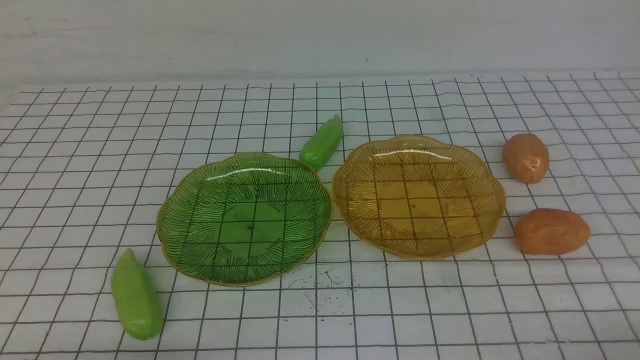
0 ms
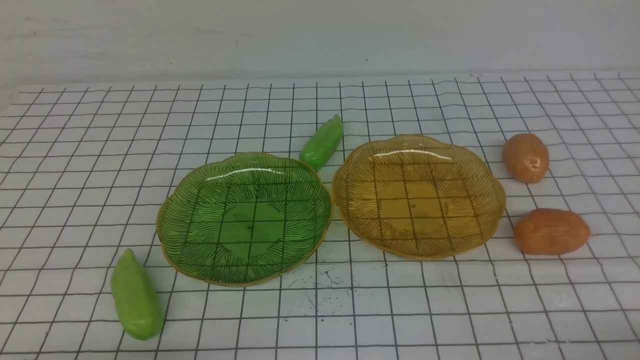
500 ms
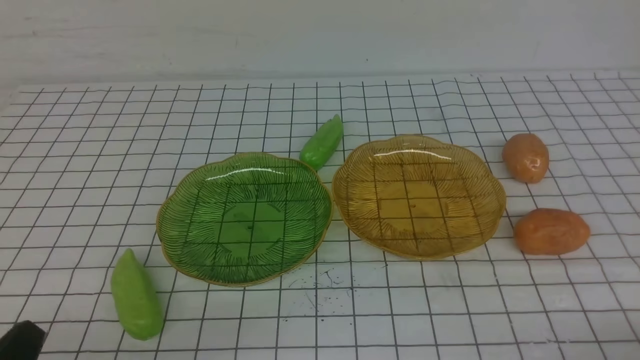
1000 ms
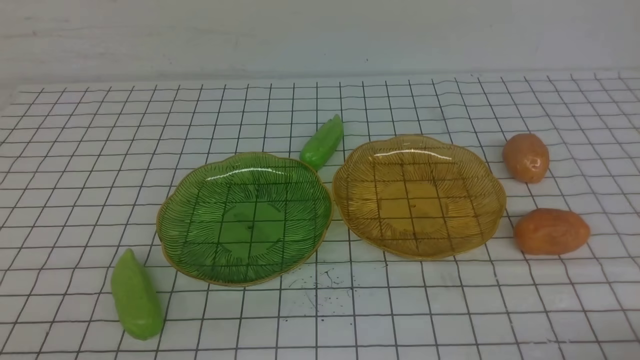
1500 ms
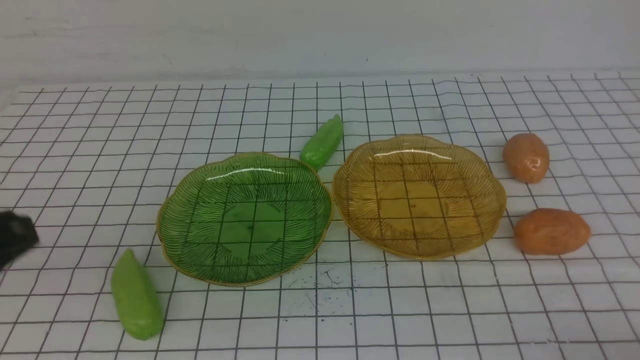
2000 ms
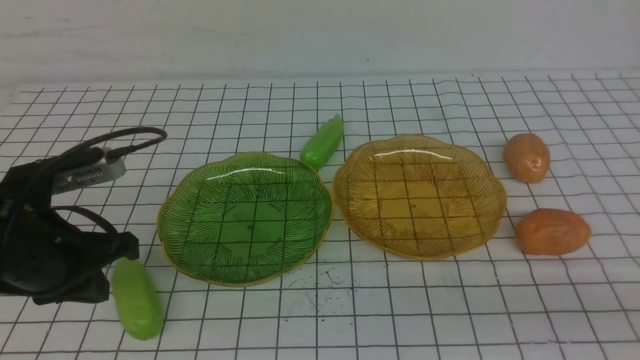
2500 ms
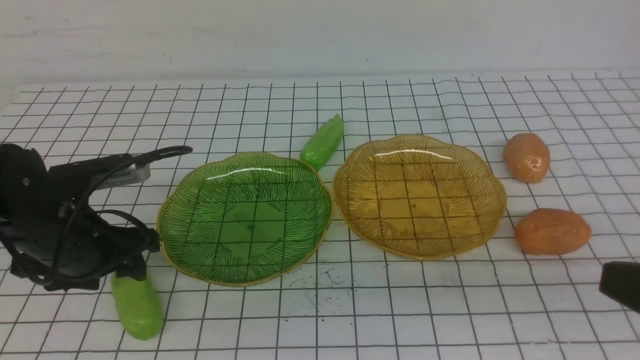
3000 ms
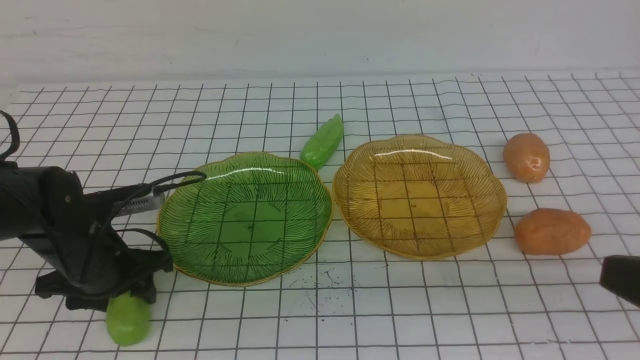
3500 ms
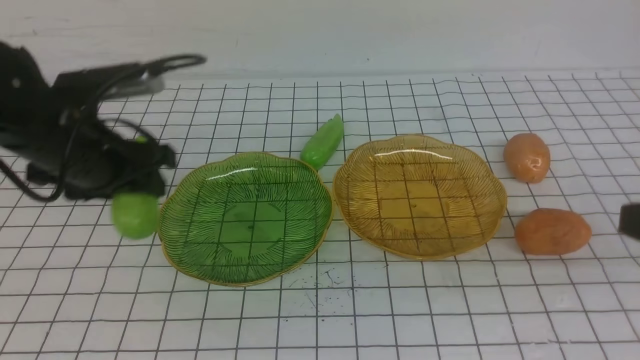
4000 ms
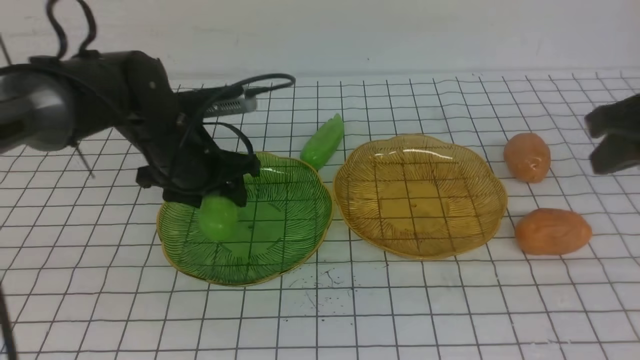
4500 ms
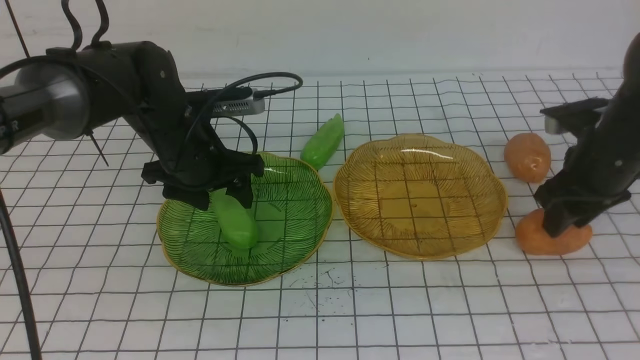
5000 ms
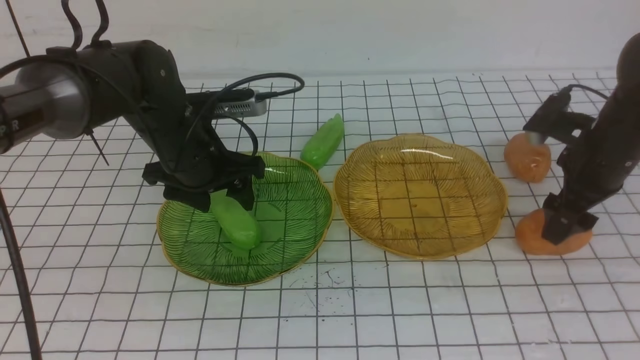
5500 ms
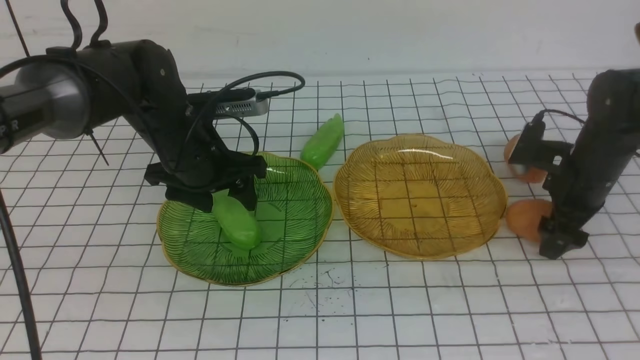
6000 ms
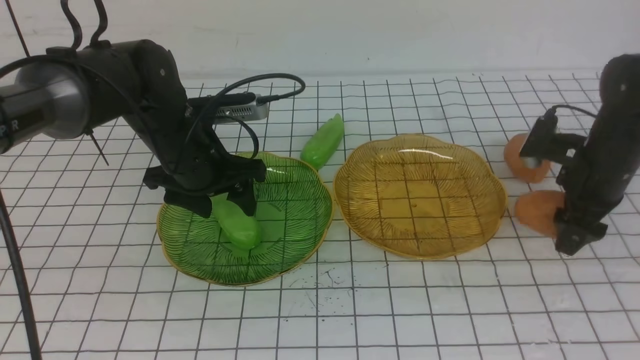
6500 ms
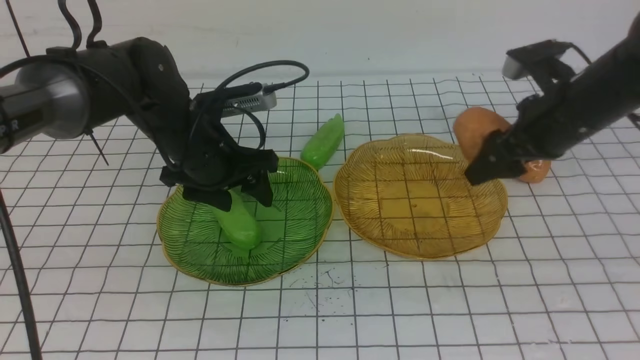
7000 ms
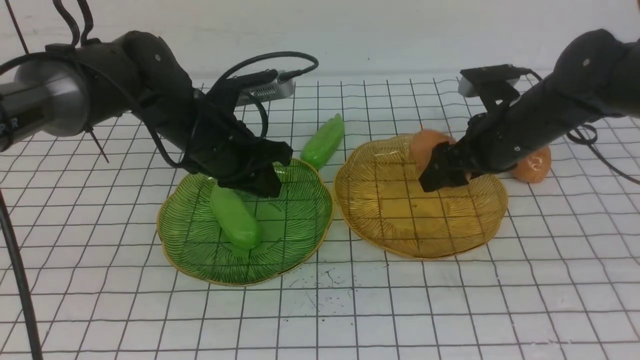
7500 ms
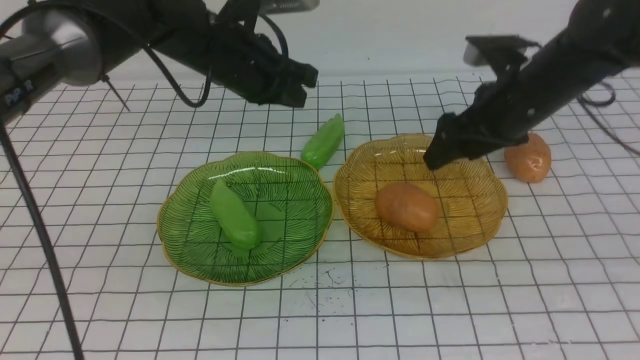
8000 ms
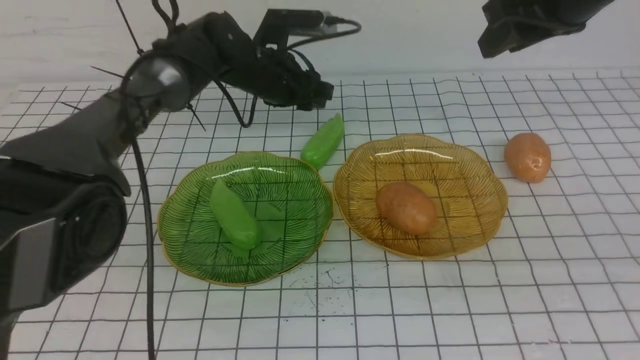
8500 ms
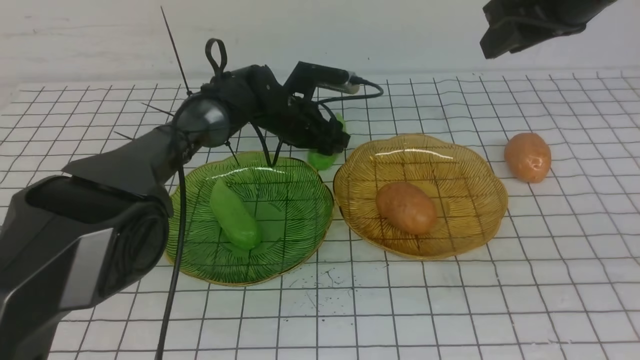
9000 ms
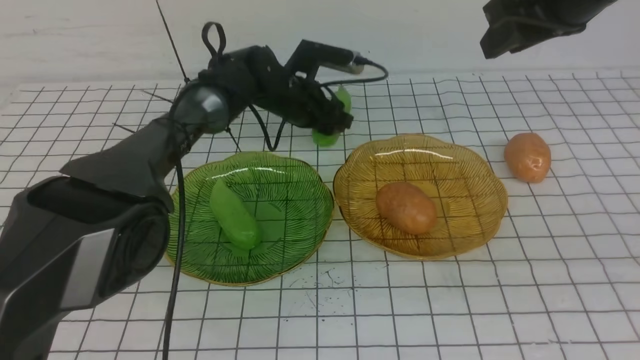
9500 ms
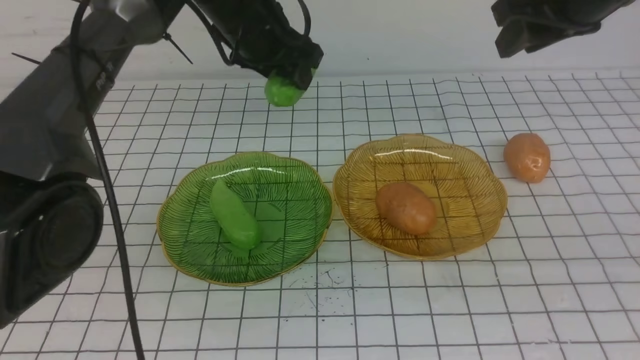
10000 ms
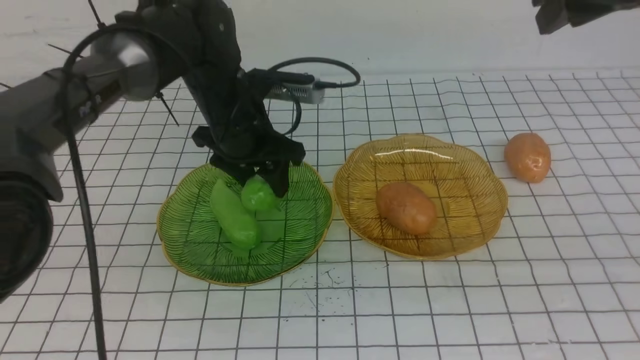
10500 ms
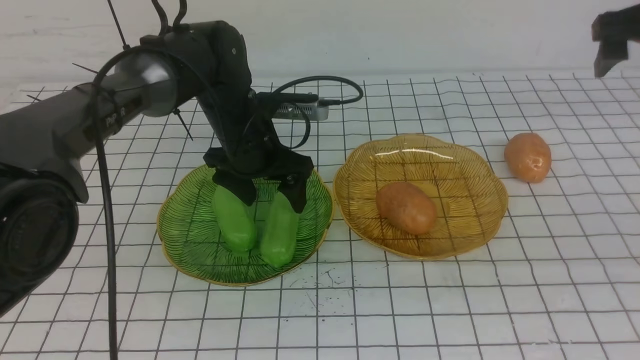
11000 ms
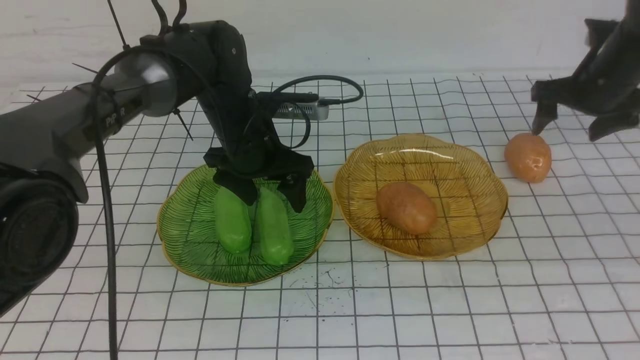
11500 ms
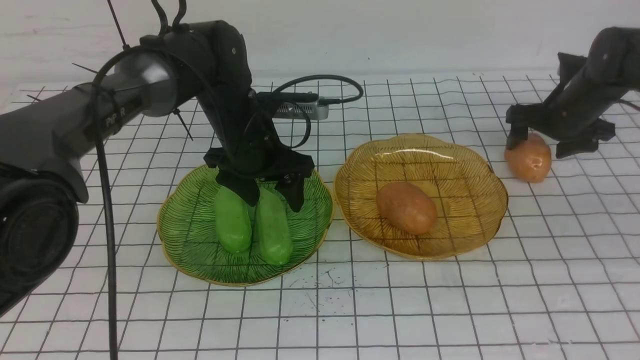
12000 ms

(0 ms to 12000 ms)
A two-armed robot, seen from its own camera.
Step, 0 ms - 4500 ms: use the left arm to grab a chayote and put it into the left plate.
Step, 5000 ms - 7500 ms: Grab a potato with your right arm and put it on the right plate.
Step, 8000 ms - 11000 ms: use the left arm to grab a chayote and put it into the left plate.
0 ms - 2000 ms: The left gripper travels upward and forward by some 20 cm.
2000 ms - 4000 ms: The left gripper moves forward, some 20 cm, and opens up; the right gripper heads upward and forward, covering about 20 cm.
4000 ms - 6000 ms: The left gripper heads to the right and forward, covering about 10 cm, while the right gripper shifts some 30 cm forward and downward, and opens its fingers.
6000 ms - 8000 ms: The left gripper moves upward and forward, some 10 cm, and closes, while the right gripper travels upward and to the left by approximately 15 cm.
8000 ms - 10000 ms: The right gripper heads upward, covering roughly 10 cm, and closes, while the left gripper reaches some 15 cm downward, then returns, and opens up.
10000 ms - 12000 ms: The right gripper heads downward, forward and to the right, covering some 30 cm, and opens; the left gripper travels downward by some 10 cm.

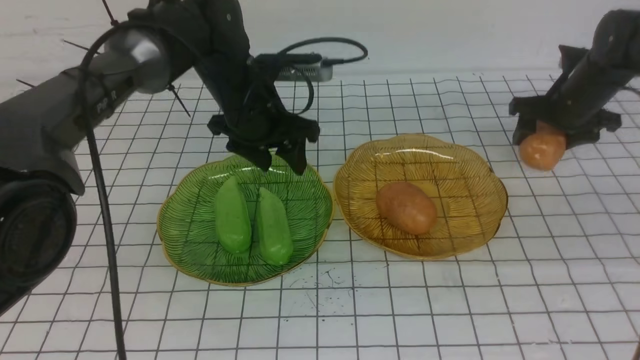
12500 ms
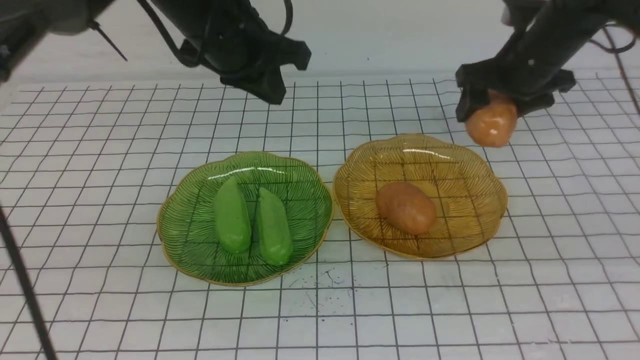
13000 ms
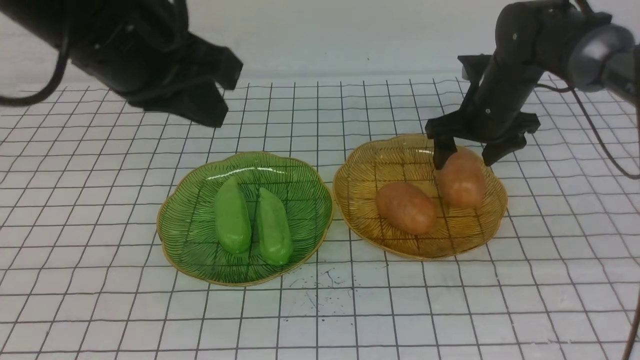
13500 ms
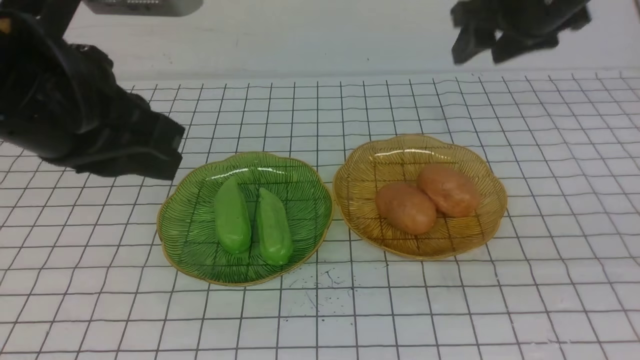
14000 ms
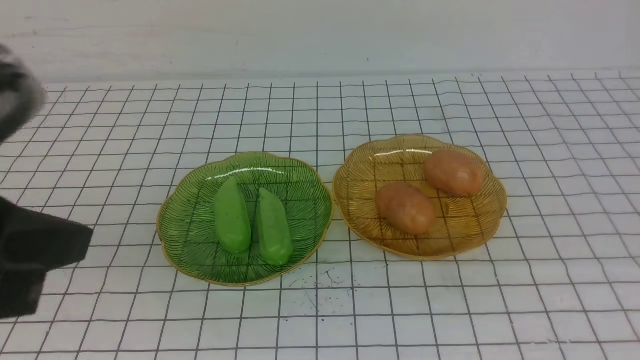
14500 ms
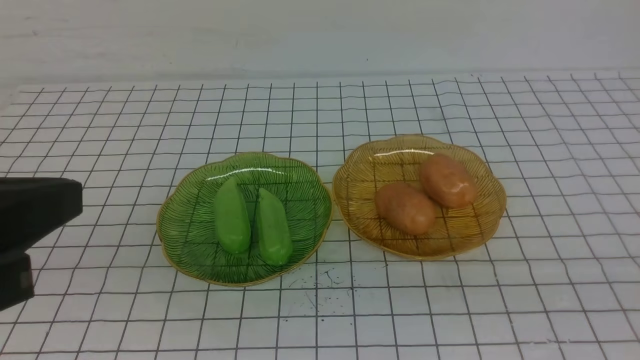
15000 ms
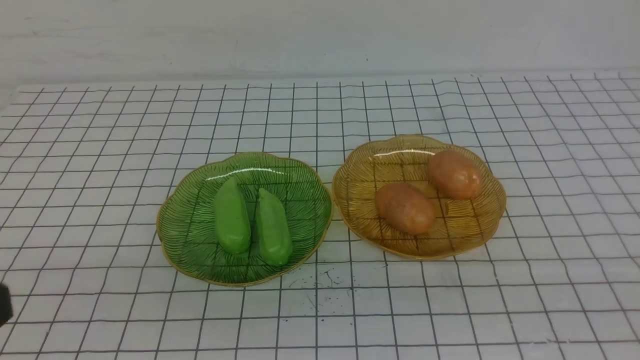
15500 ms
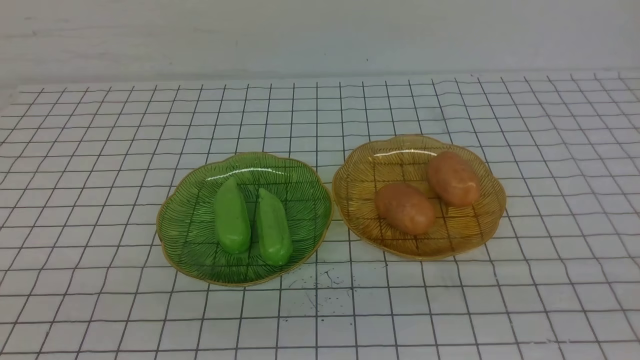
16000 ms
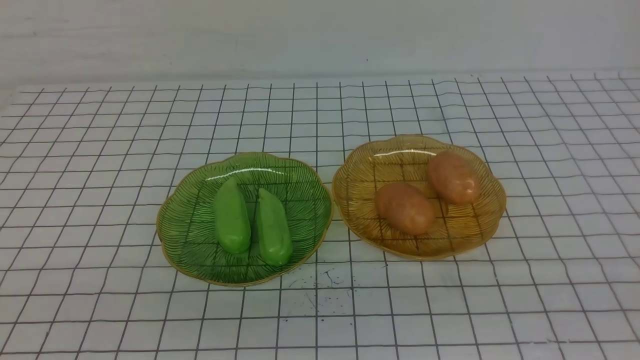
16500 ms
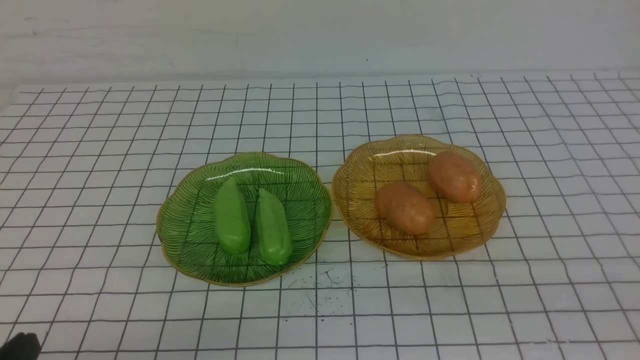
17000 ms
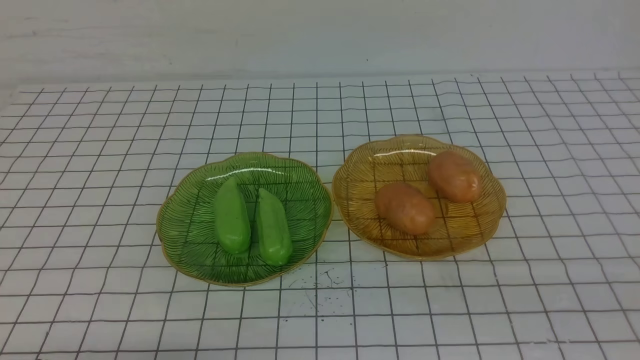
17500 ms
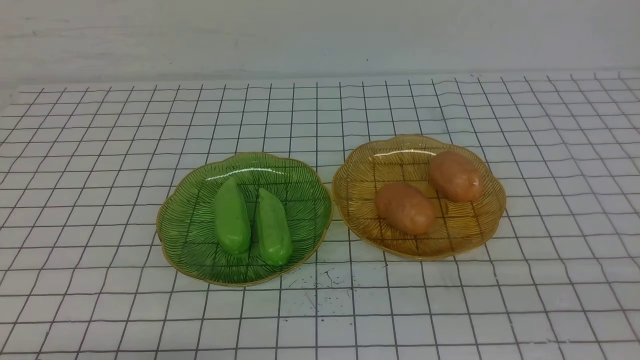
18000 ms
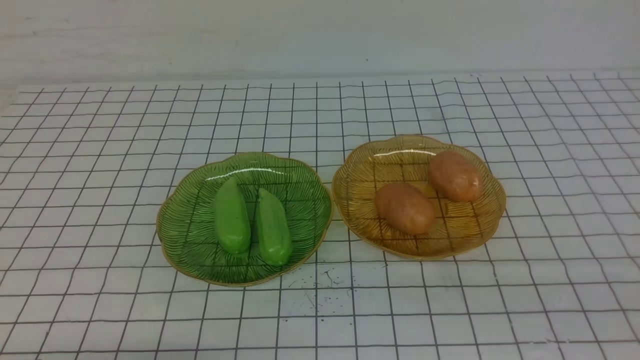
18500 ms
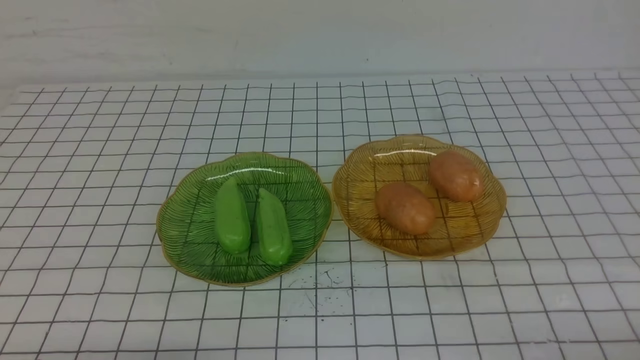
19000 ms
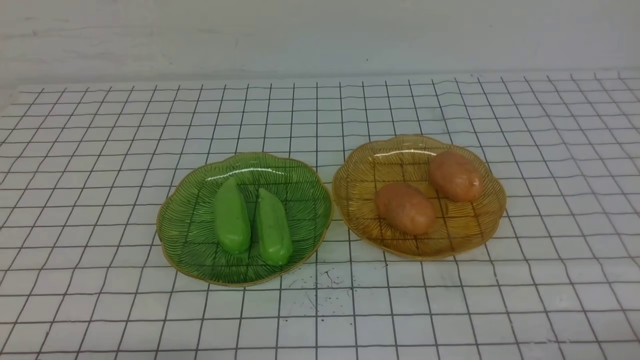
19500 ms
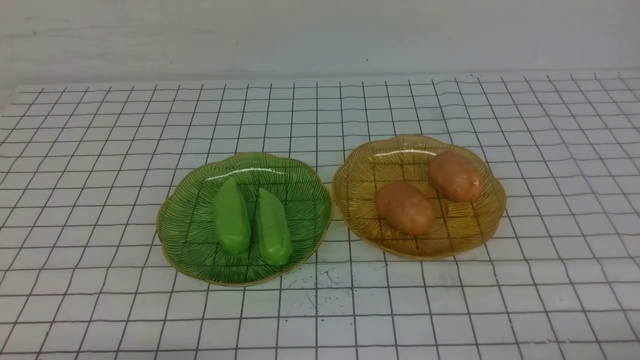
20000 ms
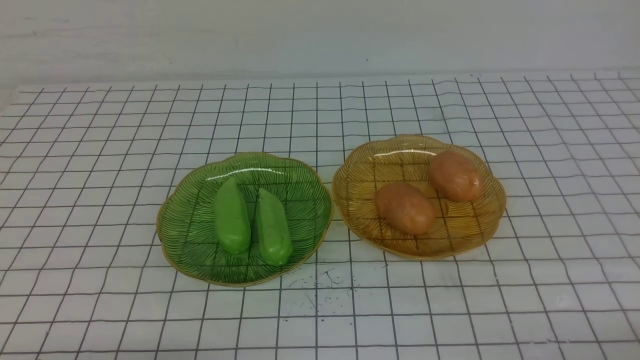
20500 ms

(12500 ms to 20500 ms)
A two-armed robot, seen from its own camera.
12500 ms - 14500 ms: The two grippers go approximately 40 cm backward and upward. The left gripper closes, while the right gripper closes.
14500 ms - 16500 ms: The left gripper heads downward and backward, covering roughly 15 cm; the right gripper shifts roughly 20 cm downward and backward.
